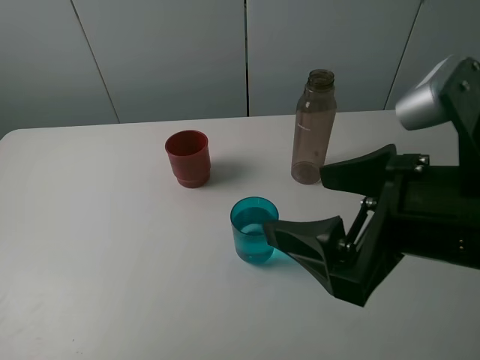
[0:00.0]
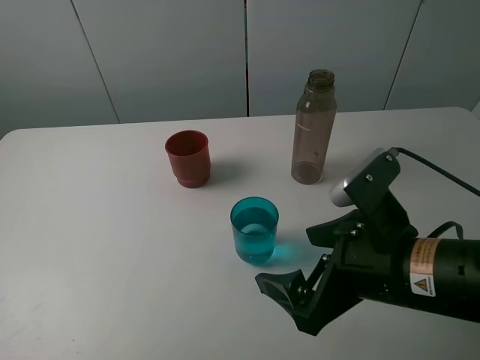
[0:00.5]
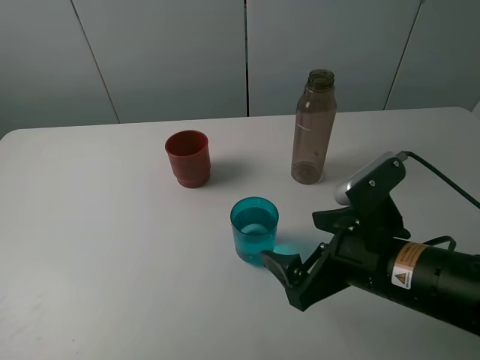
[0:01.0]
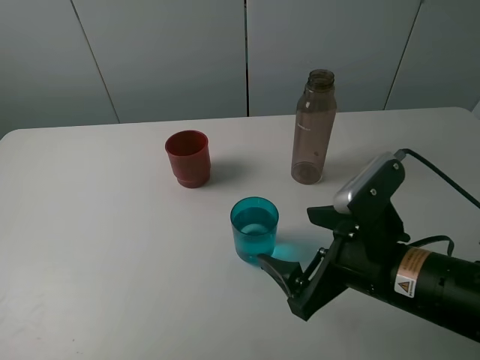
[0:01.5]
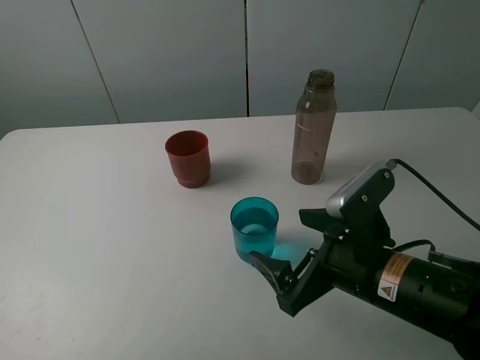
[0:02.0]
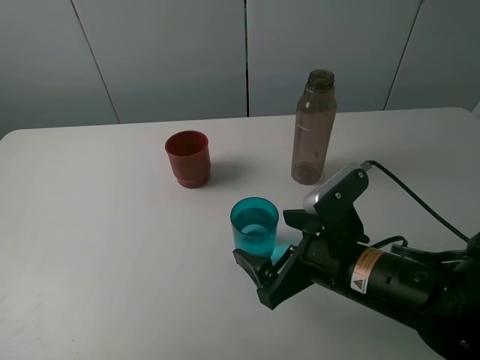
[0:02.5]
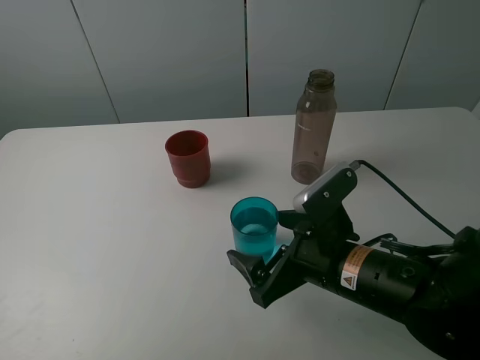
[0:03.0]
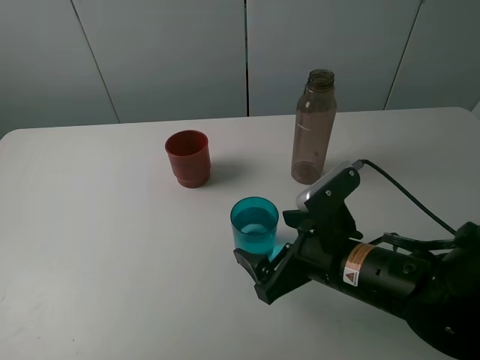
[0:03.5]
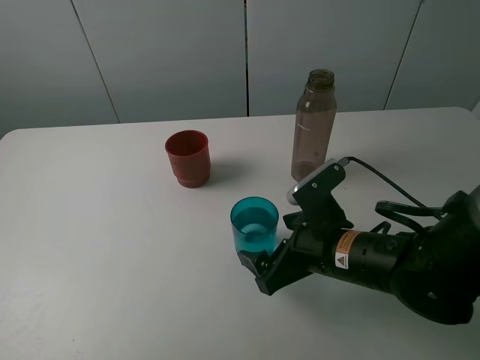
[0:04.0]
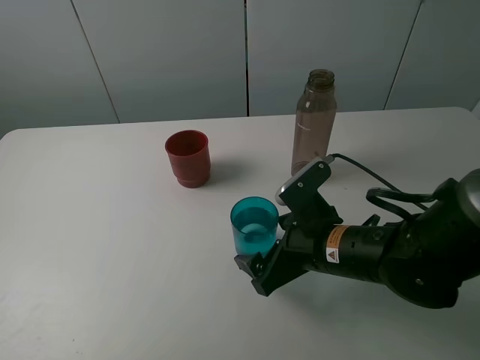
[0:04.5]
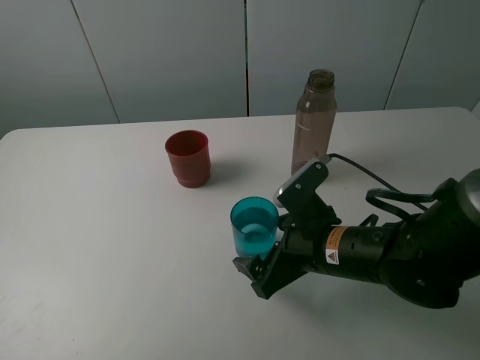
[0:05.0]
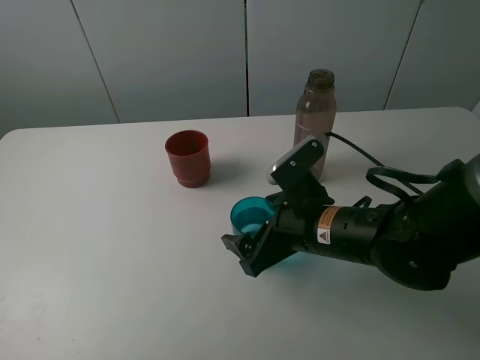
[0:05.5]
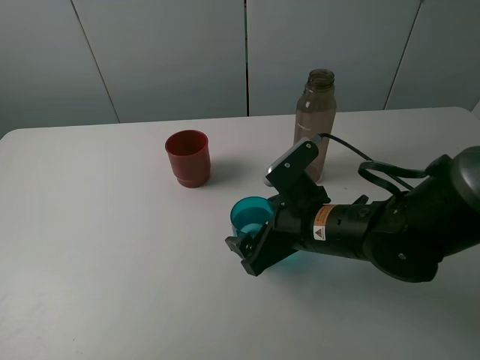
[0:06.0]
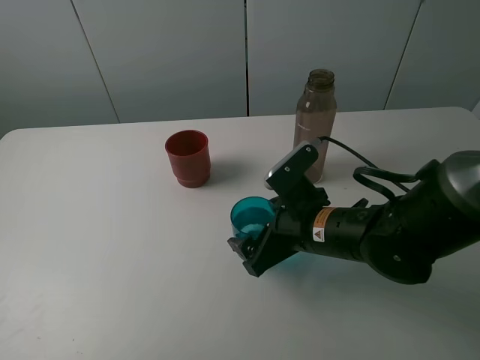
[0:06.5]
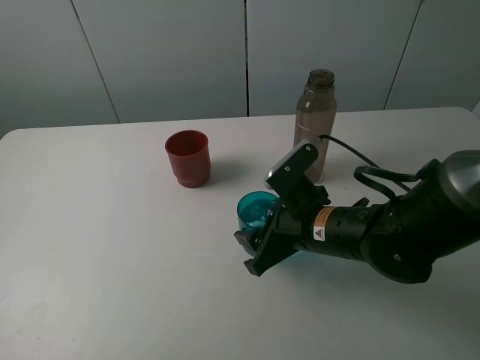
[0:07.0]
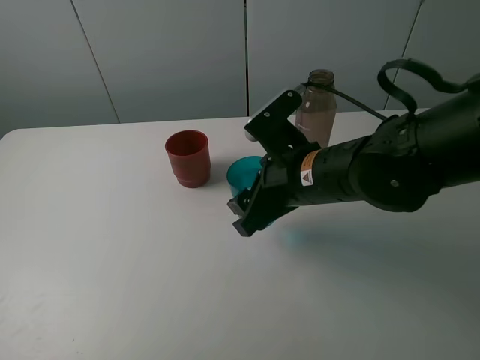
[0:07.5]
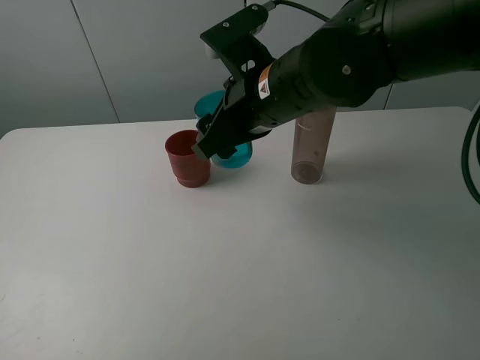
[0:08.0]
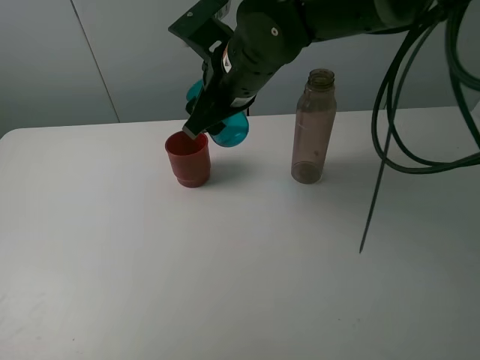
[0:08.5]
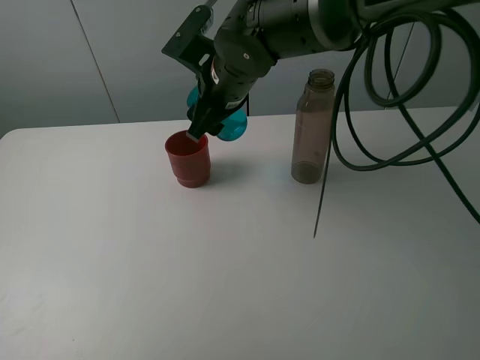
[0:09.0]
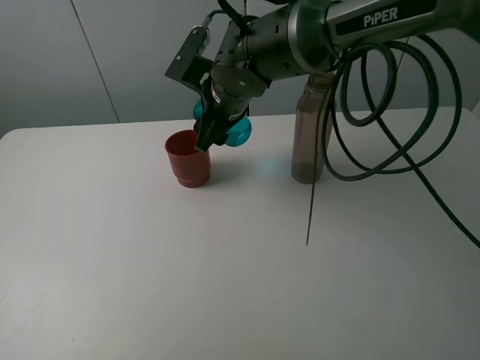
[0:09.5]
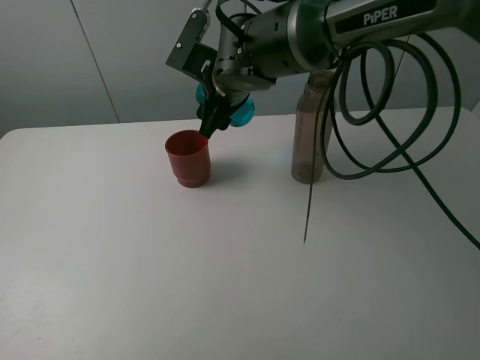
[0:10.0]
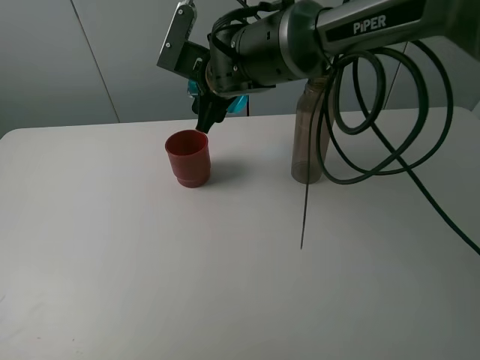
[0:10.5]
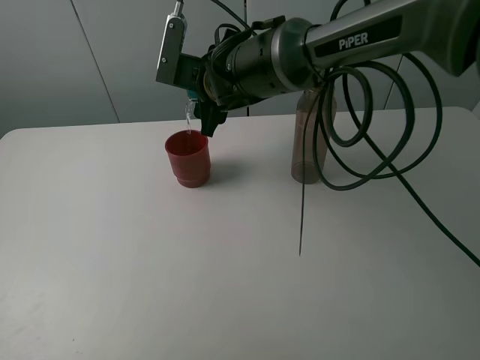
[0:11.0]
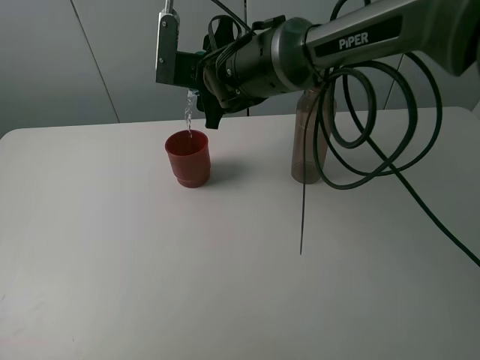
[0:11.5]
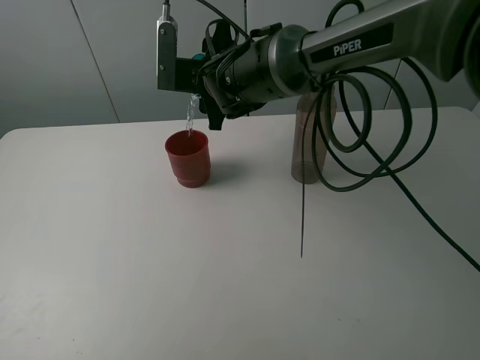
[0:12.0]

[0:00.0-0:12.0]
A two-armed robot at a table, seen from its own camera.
Task of the whole recording: pick up the bottle and pour water into the cup, then pick up the cup containing water and pour it into another cup.
Step, 0:00.0 to 0:07.0: Grasp the blue cup with the right gripper.
0:00.0 to 0:02.0: The right gripper moves downward, about 10 cm.
0:02.0 to 0:04.0: The right gripper shifts by approximately 5 cm.
0:04.0 to 0:06.0: The grippers make only small movements.
0:06.0 to 0:08.0: The right gripper goes about 15 cm upward, forward and to the left, and closes up.
0:08.0 to 0:10.0: The right gripper travels forward by approximately 10 cm.

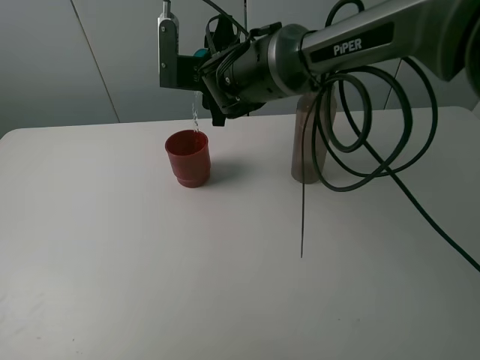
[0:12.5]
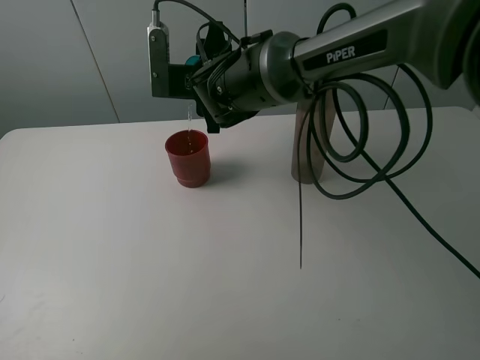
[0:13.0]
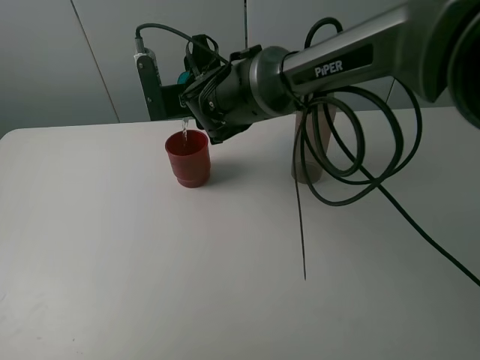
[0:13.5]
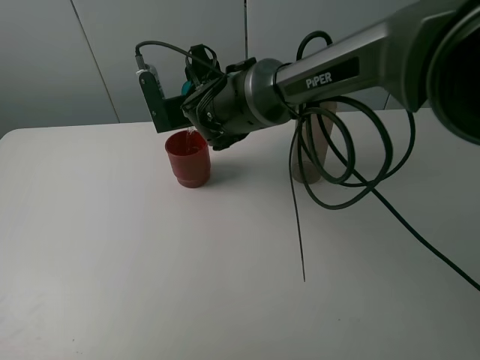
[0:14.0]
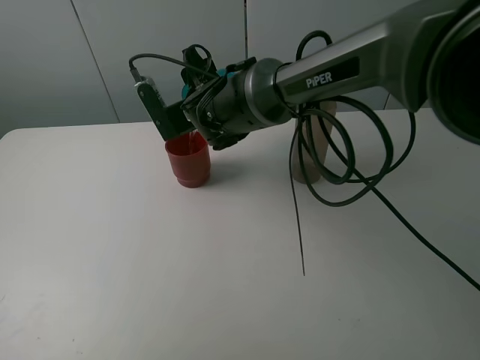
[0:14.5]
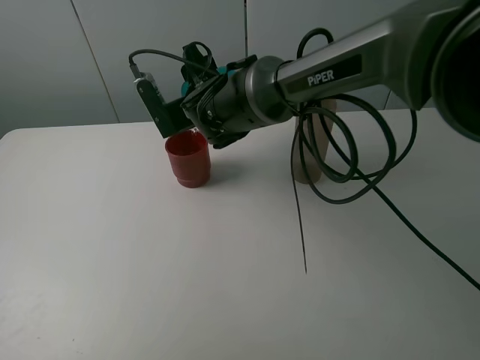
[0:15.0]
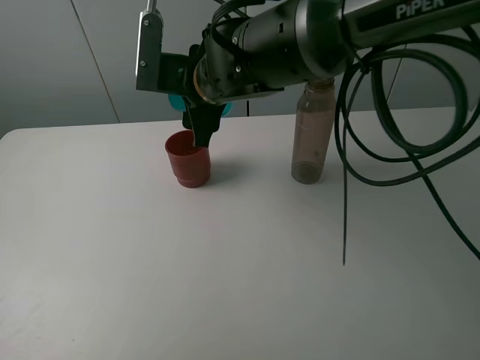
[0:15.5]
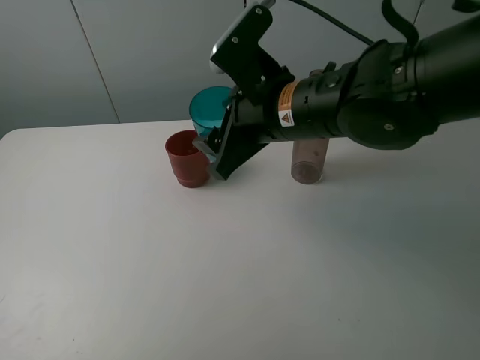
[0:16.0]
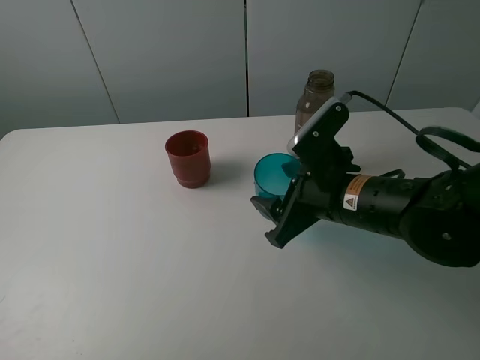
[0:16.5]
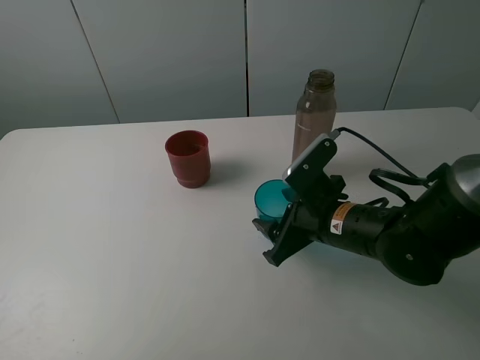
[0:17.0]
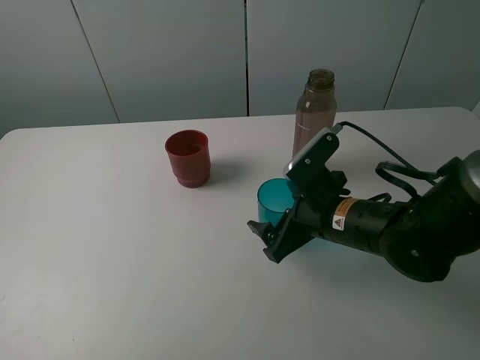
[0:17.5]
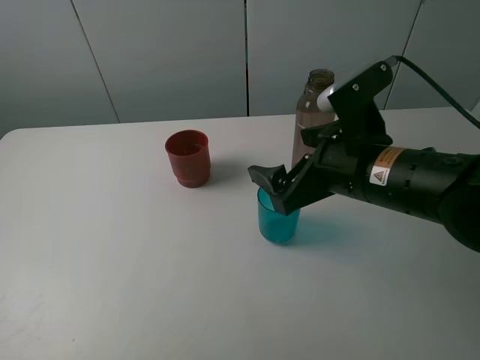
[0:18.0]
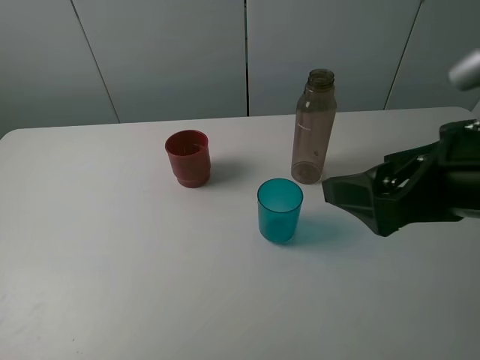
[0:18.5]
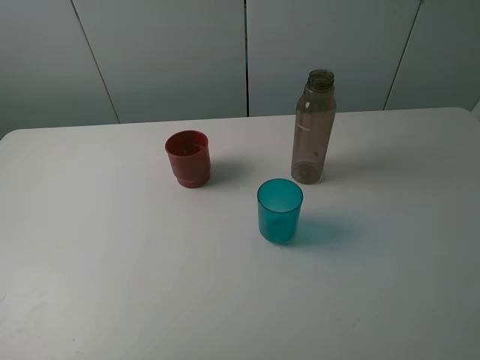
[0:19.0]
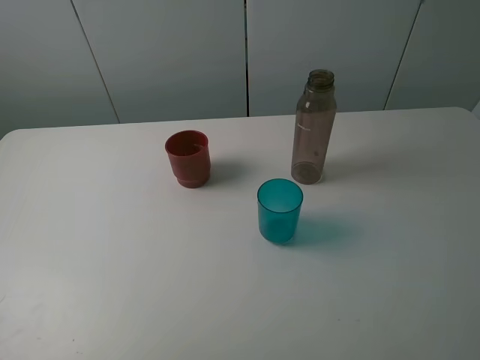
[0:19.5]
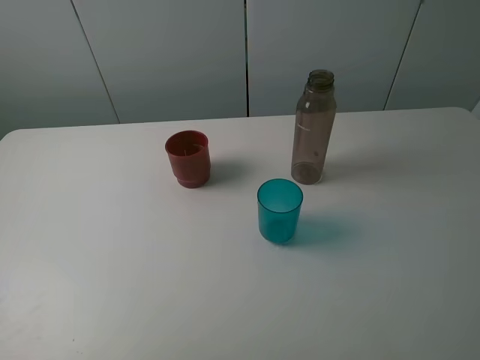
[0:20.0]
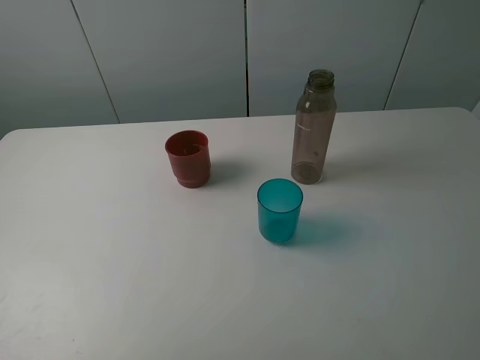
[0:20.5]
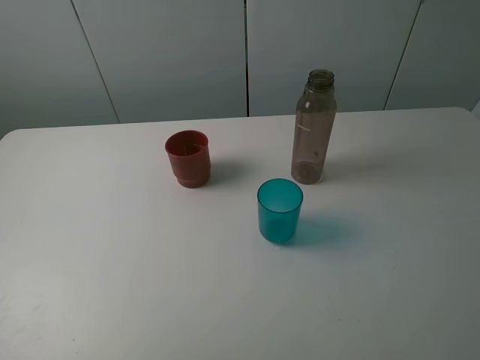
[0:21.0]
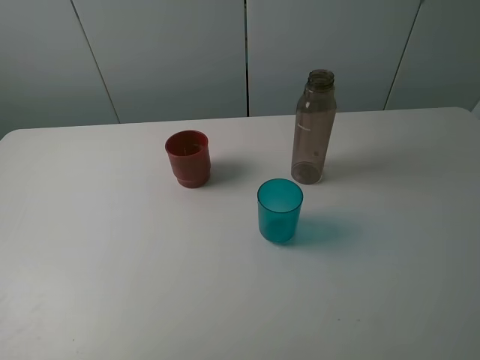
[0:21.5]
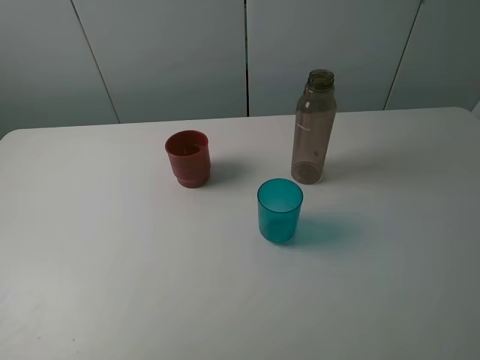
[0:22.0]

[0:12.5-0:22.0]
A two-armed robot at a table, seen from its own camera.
Task of the whole recording: pick up the bottle and pour water into the cup, then pick up the cup containing water and pour it into another cup.
Step, 0:12.5 to 0:15.0: Pour water from blue cup to red cup with the right gripper.
Step, 0:15.5 to 0:17.5: Place the blue cup with the right gripper.
0:14.5 to 0:16.5: The right gripper shifts roughly 25 cm to the right and backward.
0:16.5 to 0:18.0: The right gripper heads upward, covering approximately 5 cm, and opens up.
0:18.0 to 0:20.0: The right gripper moves backward, to the right and upward, roughly 30 cm.

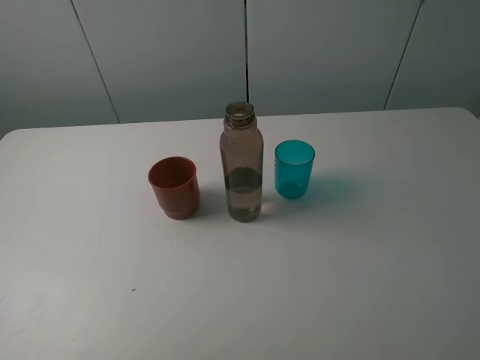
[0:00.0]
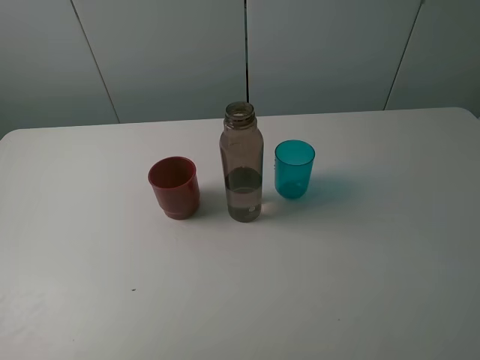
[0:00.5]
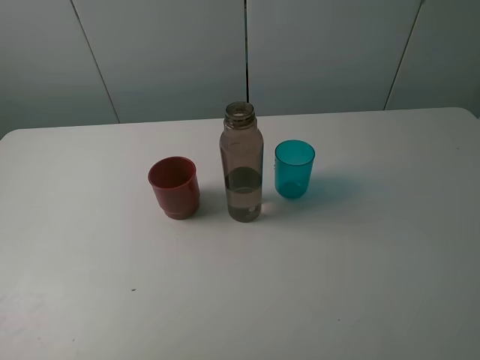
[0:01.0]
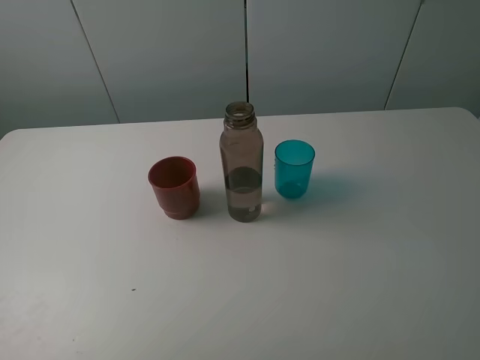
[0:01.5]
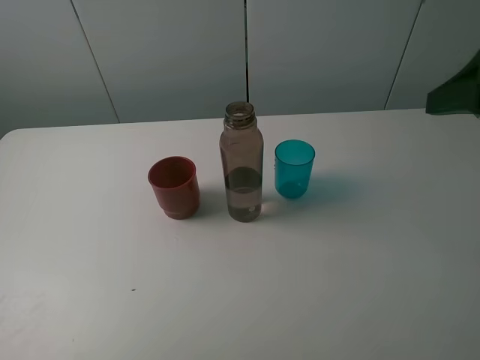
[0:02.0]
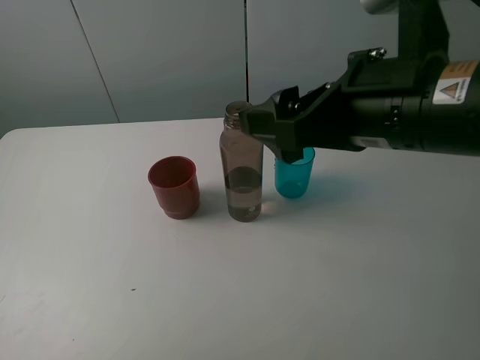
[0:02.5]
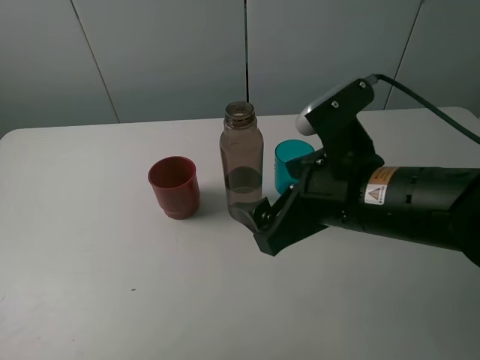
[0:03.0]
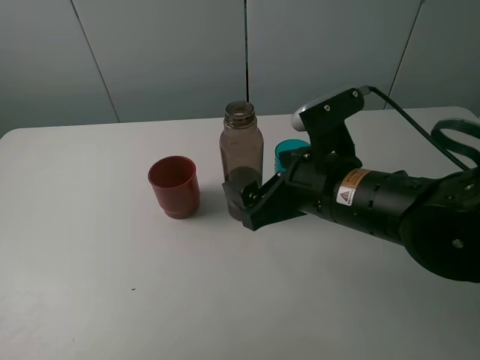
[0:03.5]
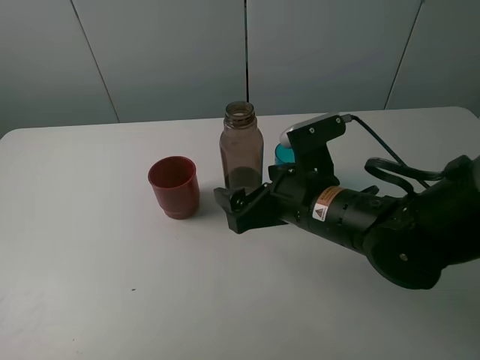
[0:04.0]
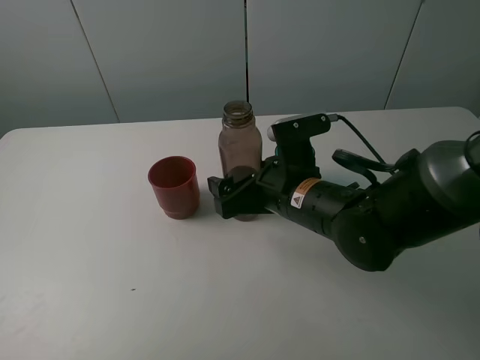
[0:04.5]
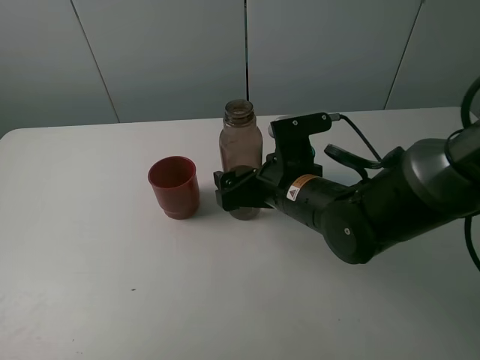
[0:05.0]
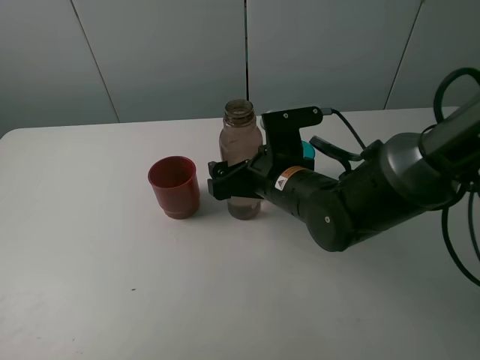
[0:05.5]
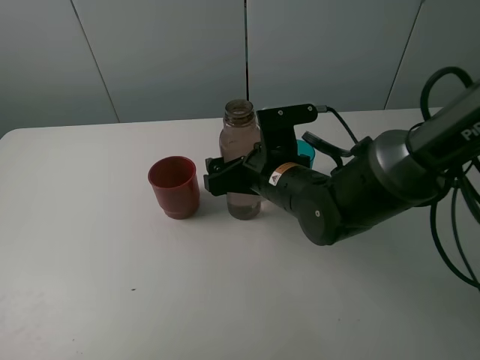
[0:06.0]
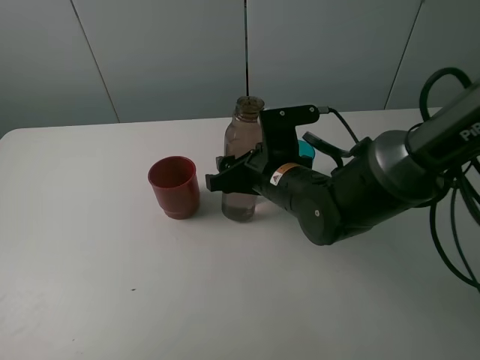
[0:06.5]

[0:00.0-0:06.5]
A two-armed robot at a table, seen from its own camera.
Task of the whole recording: pick up the bottle and pour water into the cup, then pick up the cup containing water and pour it into another cup.
Step, 0:00.0 to 0:06.5: Grasp the brown bottle with the right gripper.
0:00.0 to 0:02.0: The right gripper shifts about 15 cm forward.
0:02.0 to 0:04.5: The right gripper is displaced downward and to the left by about 25 cm.
0:04.5 to 0:06.5: The right gripper closes up.
